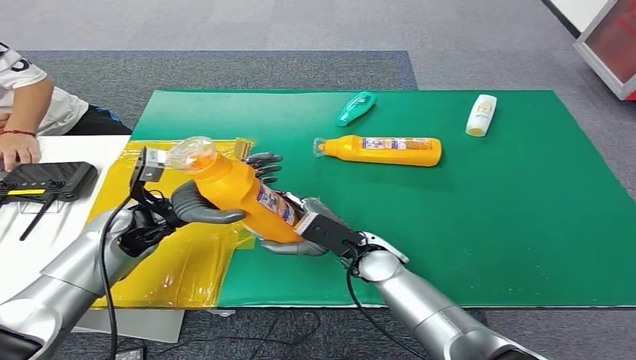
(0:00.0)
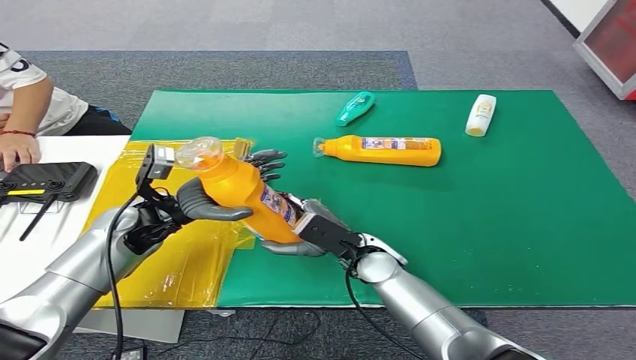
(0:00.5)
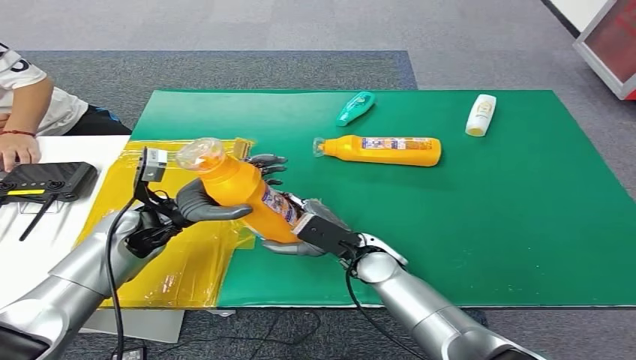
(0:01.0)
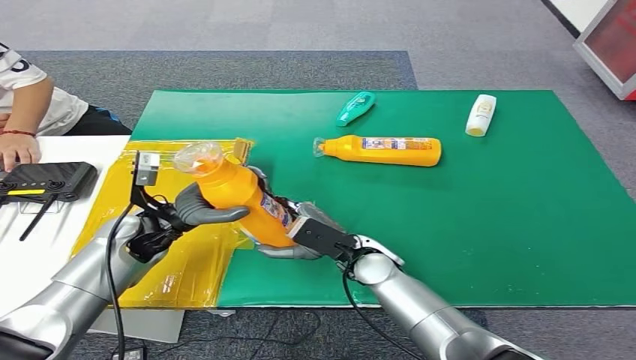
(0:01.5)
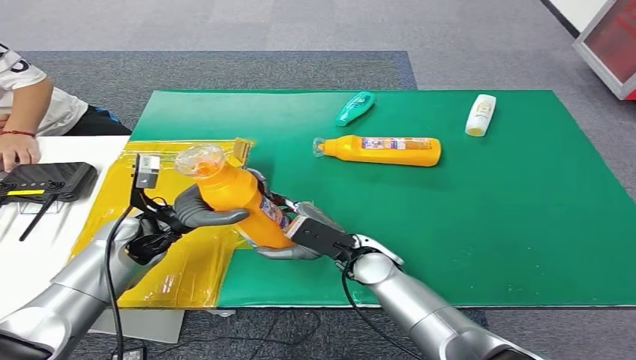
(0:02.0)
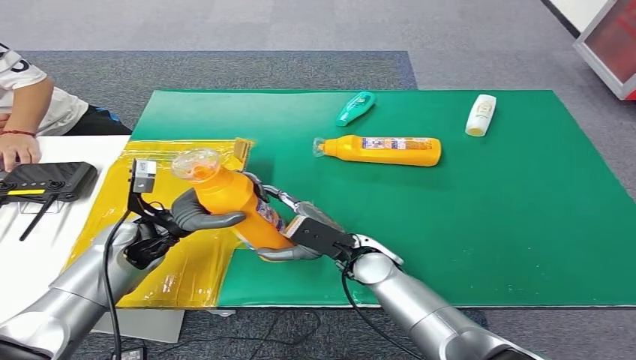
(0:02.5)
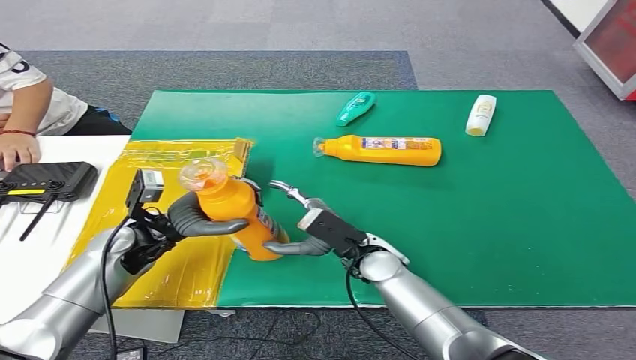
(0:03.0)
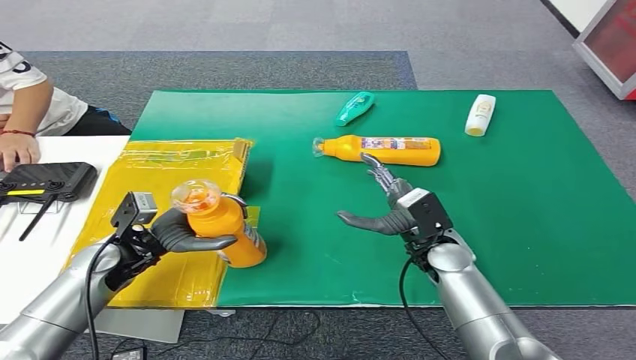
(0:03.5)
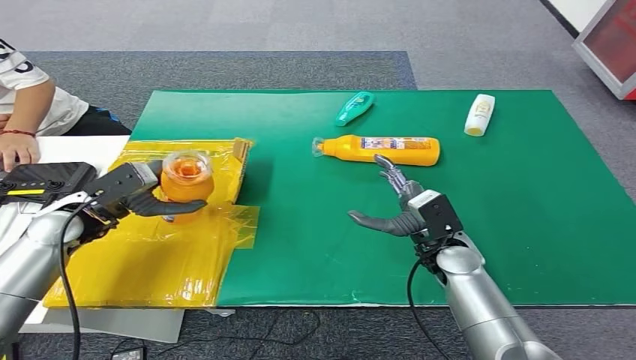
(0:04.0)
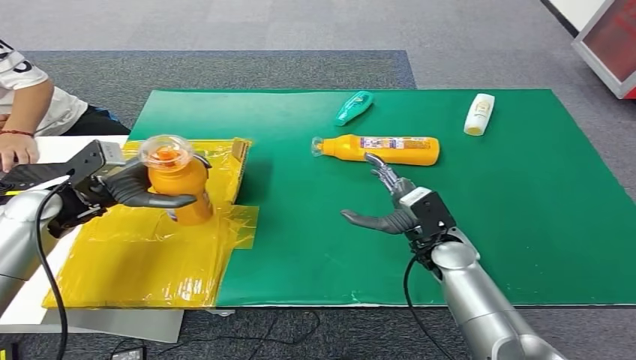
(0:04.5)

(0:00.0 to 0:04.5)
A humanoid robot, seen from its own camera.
Step, 0:00.0 - 0:04.5: Turn the bottle to the front side.
0:00.0 - 0:02.0: There are only small adjustments of the hands.
